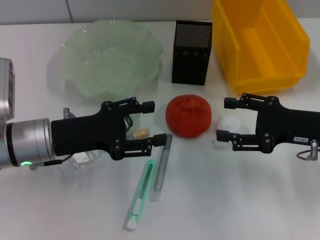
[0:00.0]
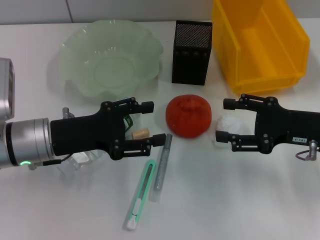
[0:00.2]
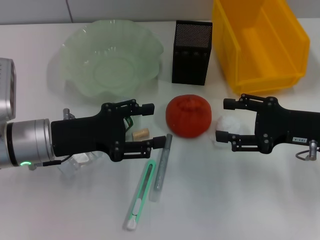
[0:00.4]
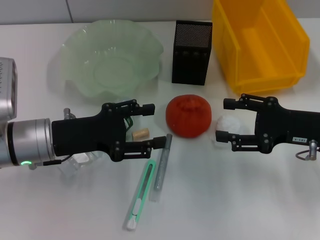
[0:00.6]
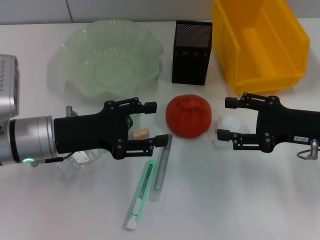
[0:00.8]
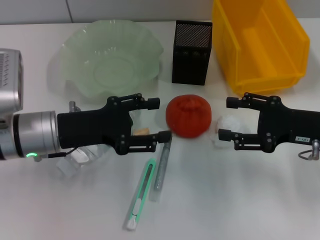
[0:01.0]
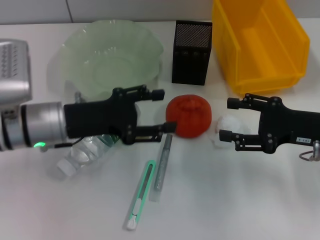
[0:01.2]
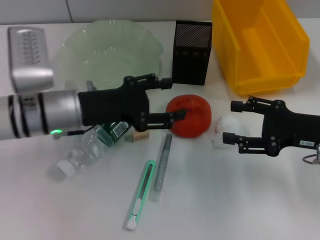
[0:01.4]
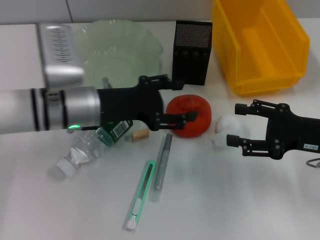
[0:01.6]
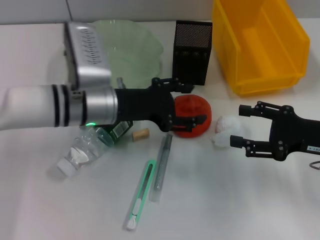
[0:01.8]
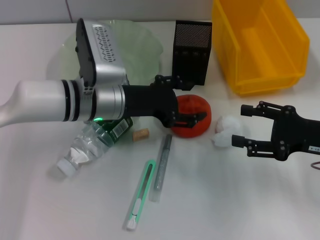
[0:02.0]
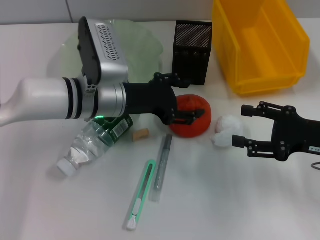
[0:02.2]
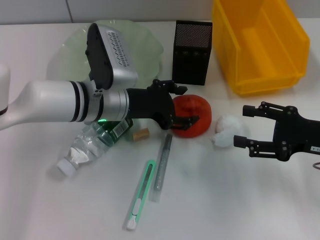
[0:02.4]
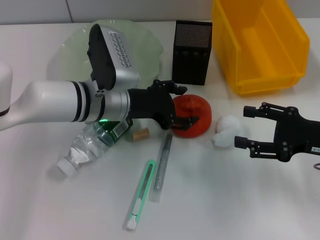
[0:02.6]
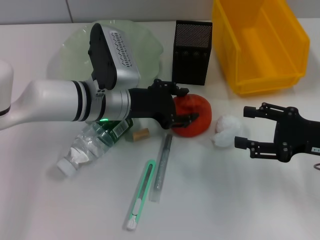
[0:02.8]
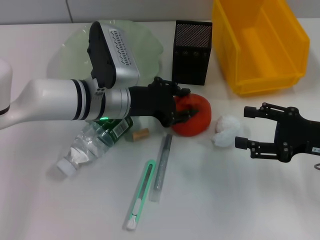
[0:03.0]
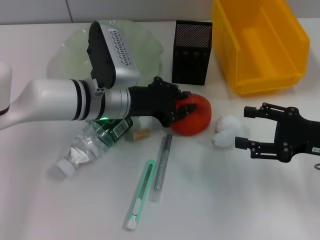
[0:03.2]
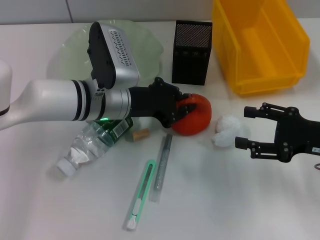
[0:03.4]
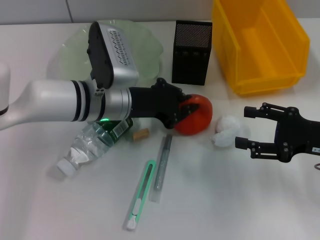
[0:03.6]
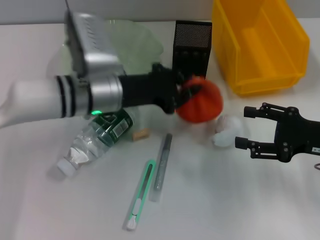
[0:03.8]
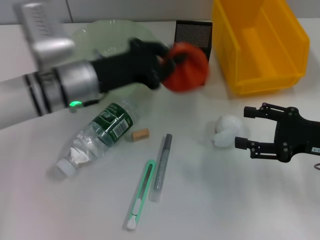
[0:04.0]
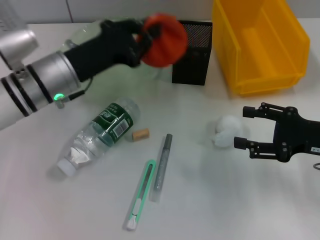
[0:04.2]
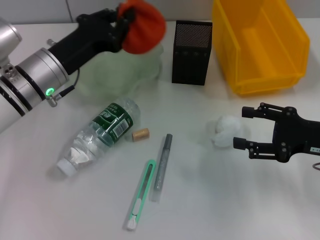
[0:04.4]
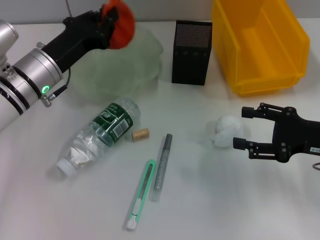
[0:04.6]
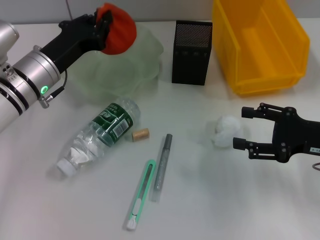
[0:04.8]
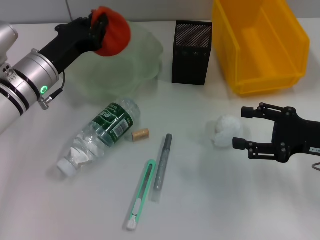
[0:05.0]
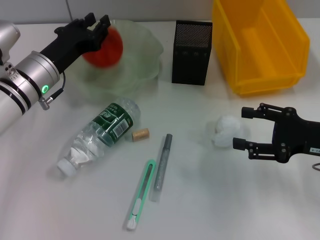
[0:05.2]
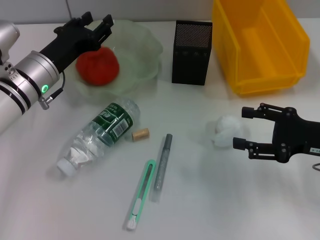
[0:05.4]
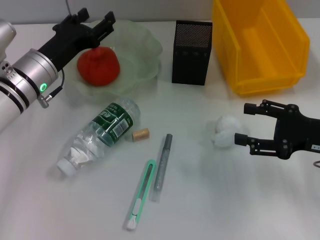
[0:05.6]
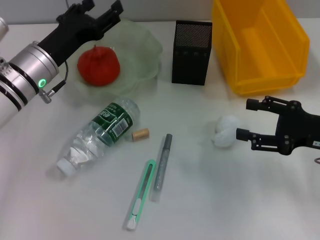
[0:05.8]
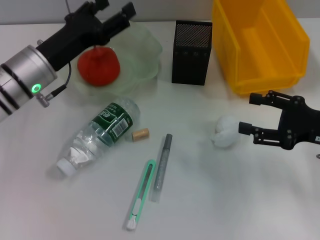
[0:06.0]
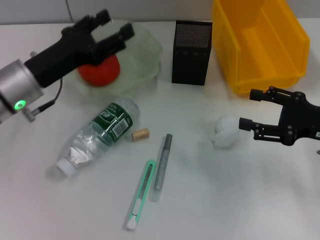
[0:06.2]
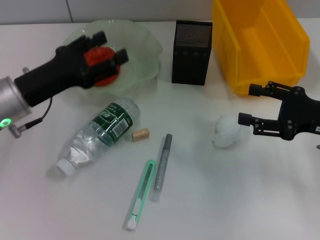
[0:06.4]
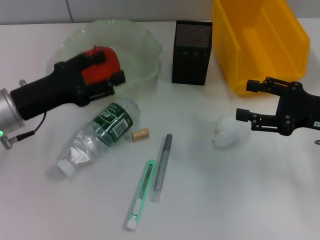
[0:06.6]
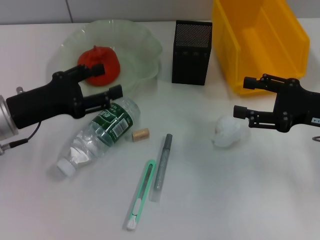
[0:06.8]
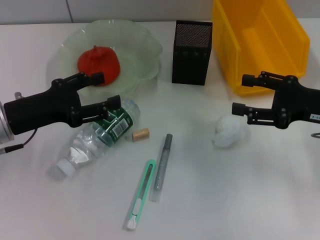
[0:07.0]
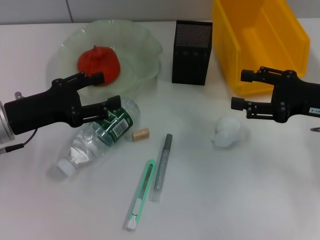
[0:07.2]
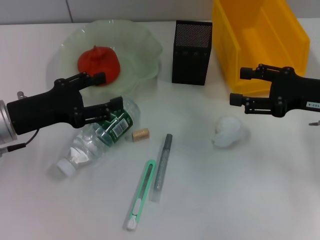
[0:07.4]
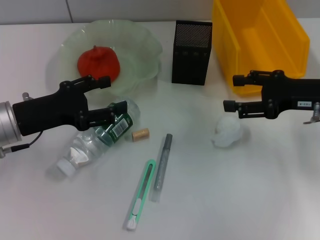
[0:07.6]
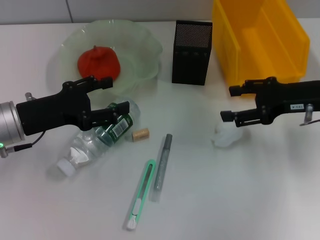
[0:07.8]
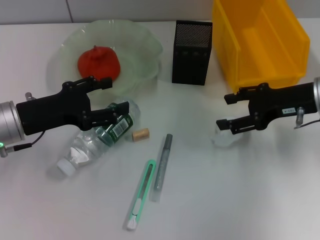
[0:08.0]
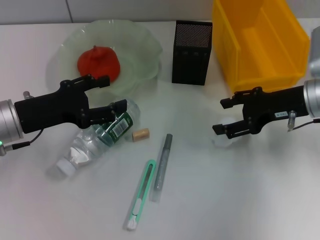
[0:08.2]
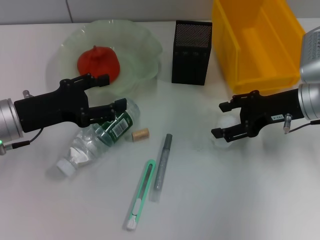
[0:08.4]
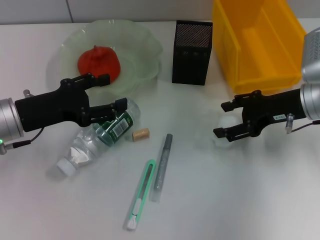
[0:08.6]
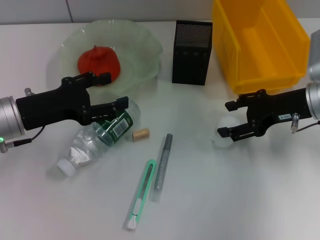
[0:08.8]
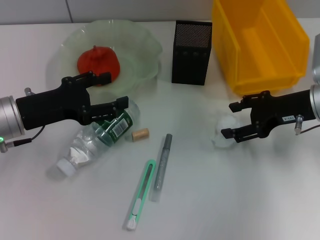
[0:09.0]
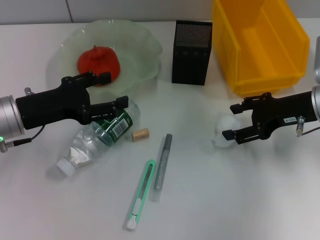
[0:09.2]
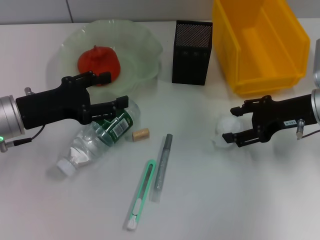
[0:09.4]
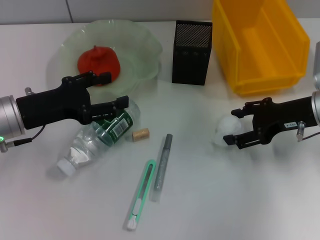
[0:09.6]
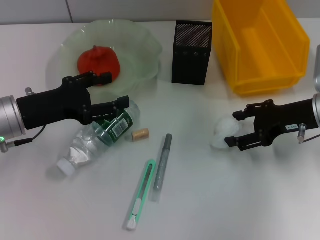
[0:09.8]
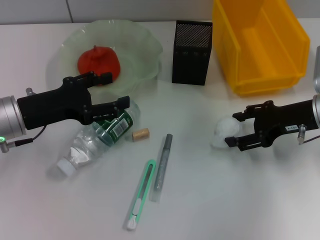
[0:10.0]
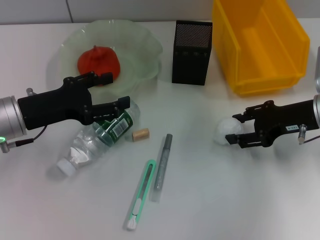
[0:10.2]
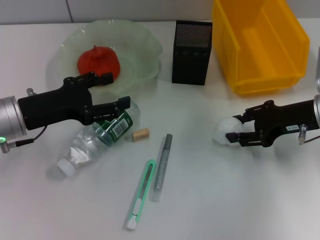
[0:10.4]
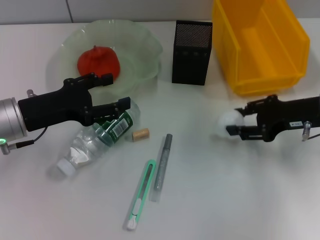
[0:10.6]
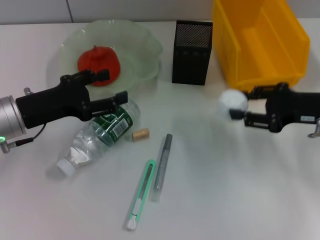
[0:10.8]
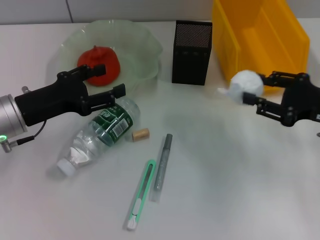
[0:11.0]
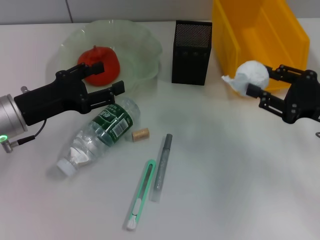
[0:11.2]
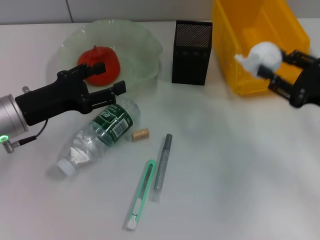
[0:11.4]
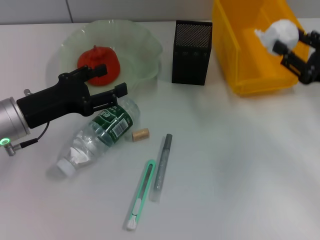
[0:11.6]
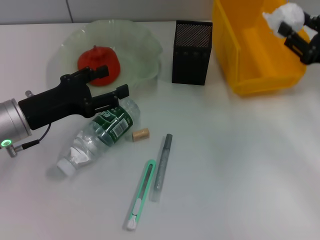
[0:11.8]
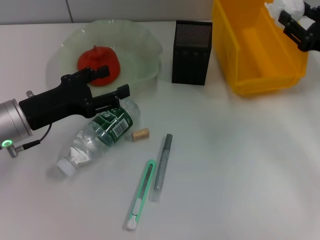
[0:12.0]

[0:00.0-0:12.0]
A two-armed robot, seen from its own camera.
Step, 0:00.0 to 0:03.4: Grab the orange with the left hand.
Step, 0:03.6 to 0:05.4: Place the orange into the fruit bowl with the left hand.
Step, 0:05.6 to 0:10.2: Grab the paper ball with the right hand.
0:00.0 to 0:01.6: The left gripper goes roughly 5 cm to the right and forward.
0:01.6 to 0:03.0: The left gripper shifts by some 5 cm.
0:03.0 to 0:04.4: The left gripper shifts about 10 cm to the left, and closes its fingers.
0:04.4 to 0:06.0: The left gripper opens up.
0:06.0 to 0:07.6: The left gripper travels backward by some 5 cm. Meanwhile the right gripper is displaced forward by about 5 cm.
0:07.6 to 0:09.0: There are only small adjustments of the grippers.
0:09.0 to 0:10.4: There are only small adjustments of the grippers.

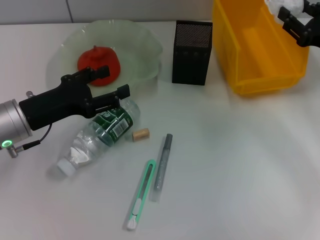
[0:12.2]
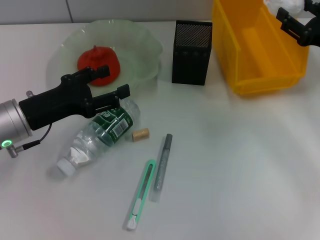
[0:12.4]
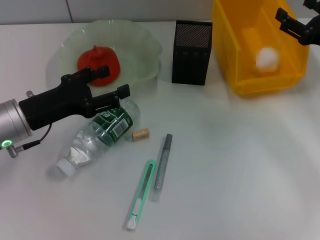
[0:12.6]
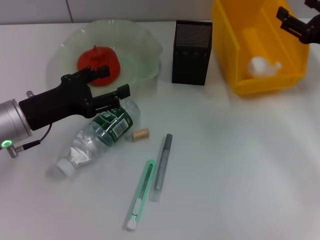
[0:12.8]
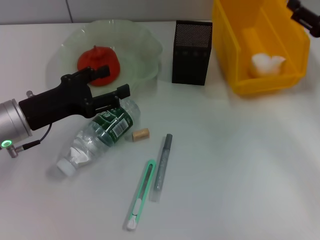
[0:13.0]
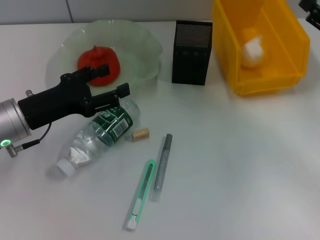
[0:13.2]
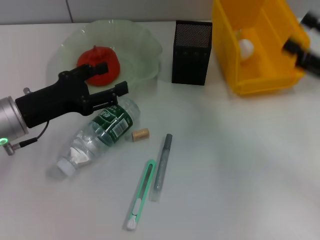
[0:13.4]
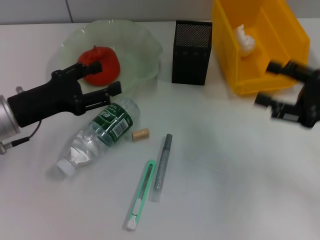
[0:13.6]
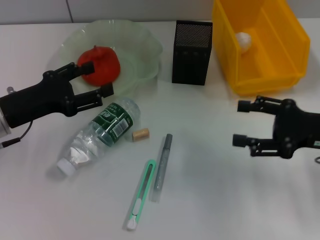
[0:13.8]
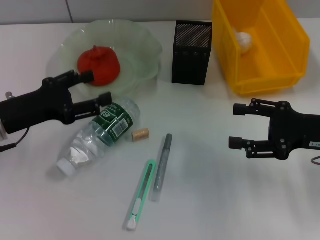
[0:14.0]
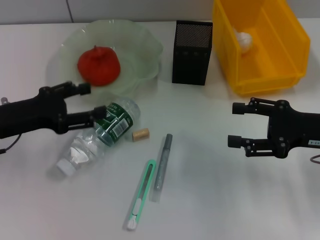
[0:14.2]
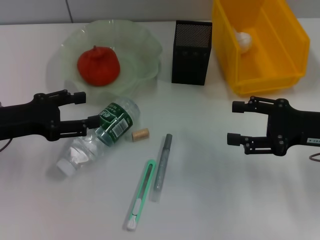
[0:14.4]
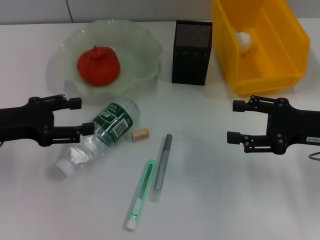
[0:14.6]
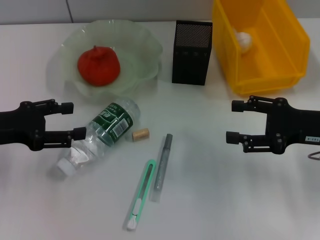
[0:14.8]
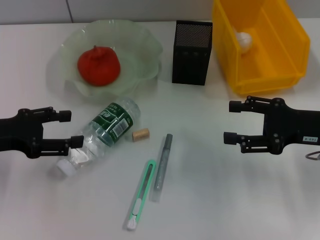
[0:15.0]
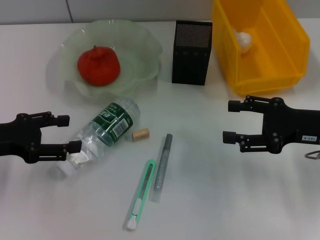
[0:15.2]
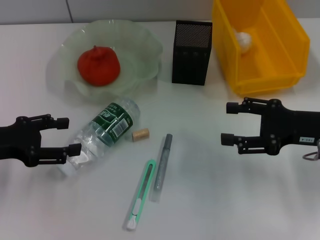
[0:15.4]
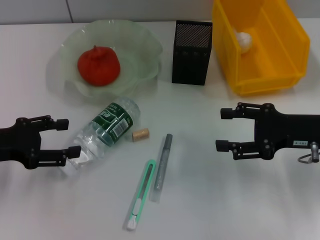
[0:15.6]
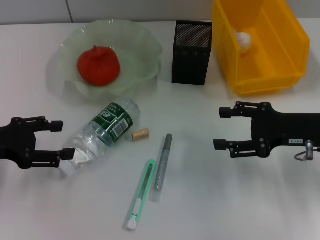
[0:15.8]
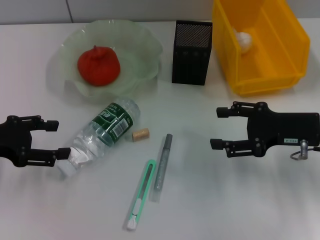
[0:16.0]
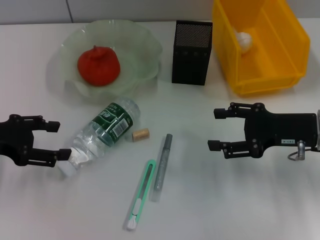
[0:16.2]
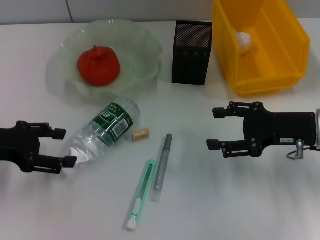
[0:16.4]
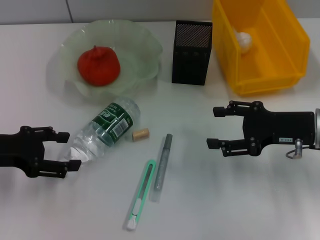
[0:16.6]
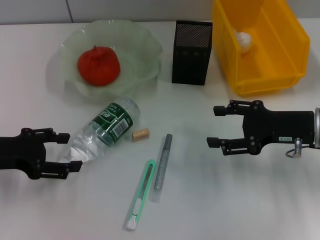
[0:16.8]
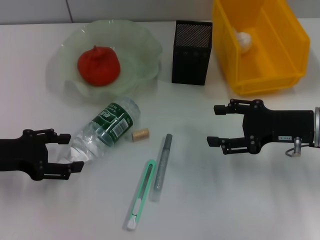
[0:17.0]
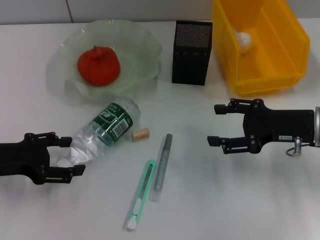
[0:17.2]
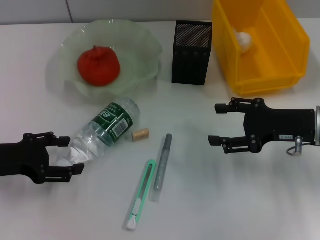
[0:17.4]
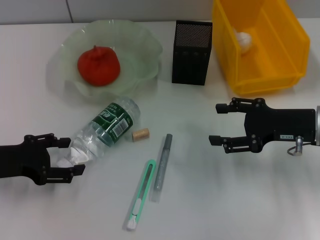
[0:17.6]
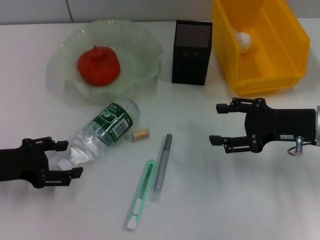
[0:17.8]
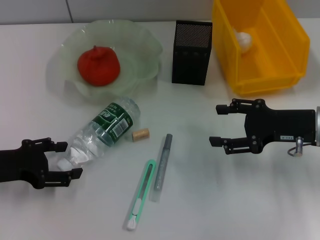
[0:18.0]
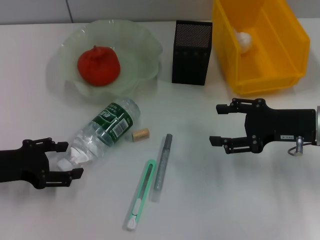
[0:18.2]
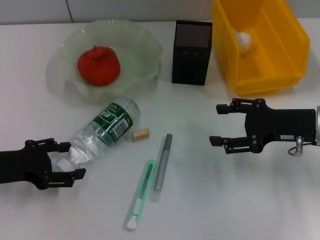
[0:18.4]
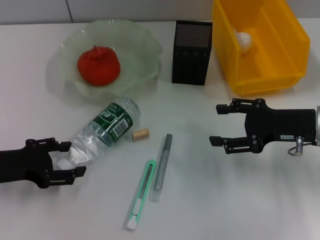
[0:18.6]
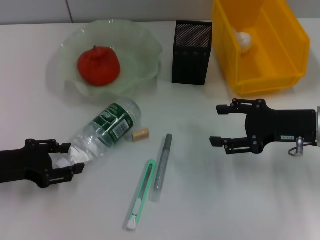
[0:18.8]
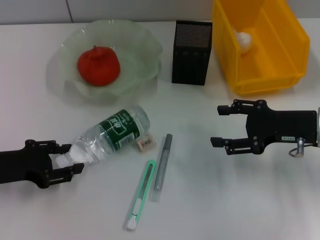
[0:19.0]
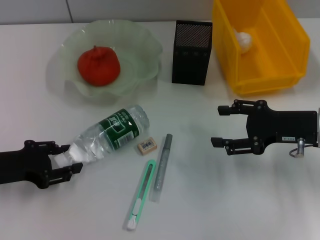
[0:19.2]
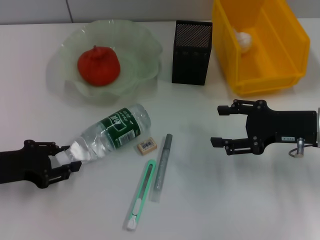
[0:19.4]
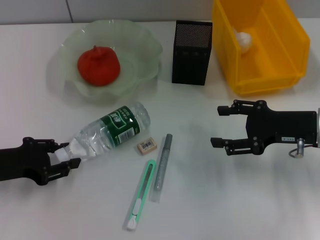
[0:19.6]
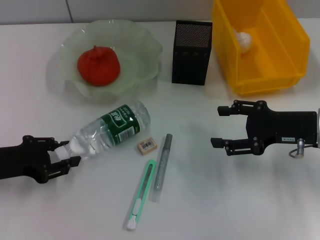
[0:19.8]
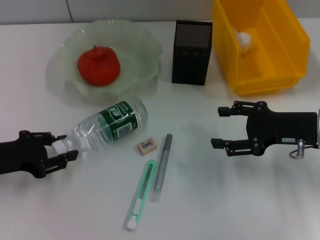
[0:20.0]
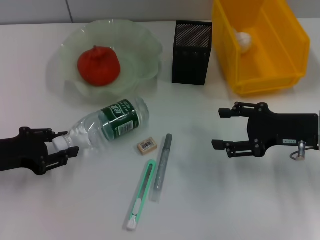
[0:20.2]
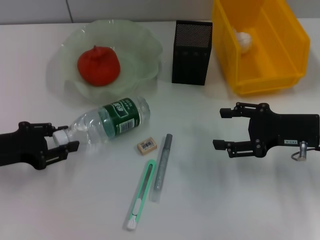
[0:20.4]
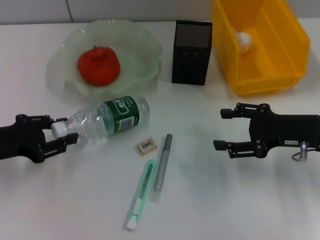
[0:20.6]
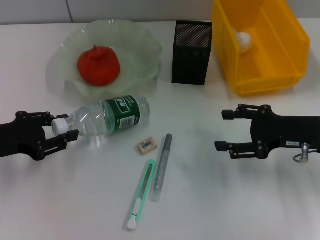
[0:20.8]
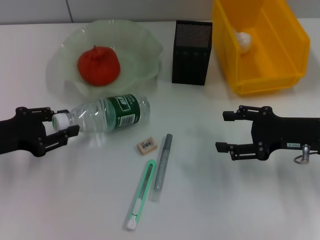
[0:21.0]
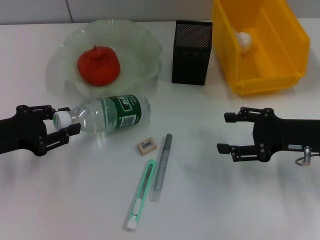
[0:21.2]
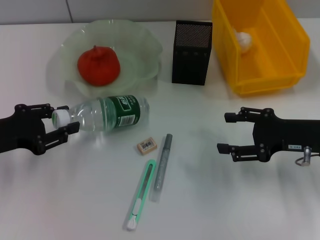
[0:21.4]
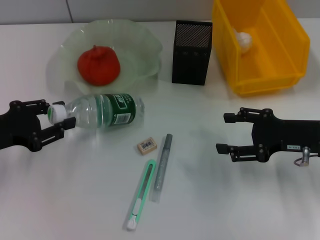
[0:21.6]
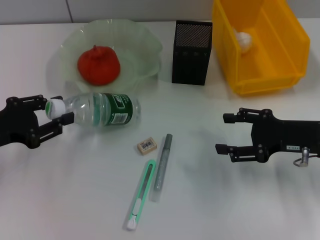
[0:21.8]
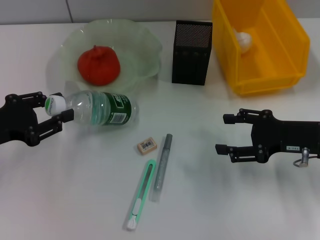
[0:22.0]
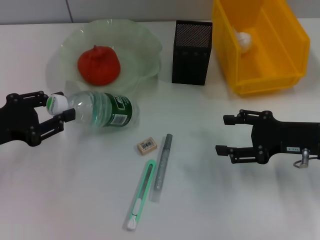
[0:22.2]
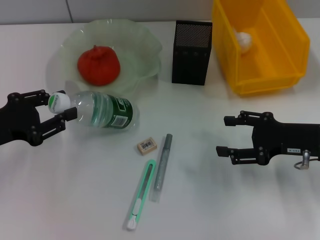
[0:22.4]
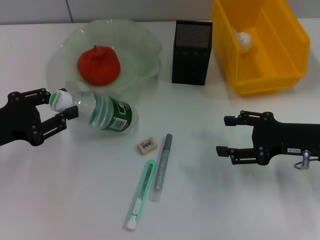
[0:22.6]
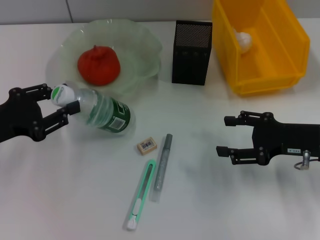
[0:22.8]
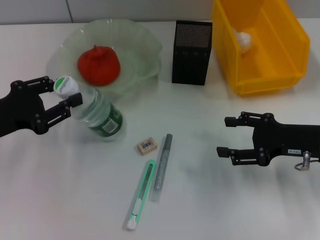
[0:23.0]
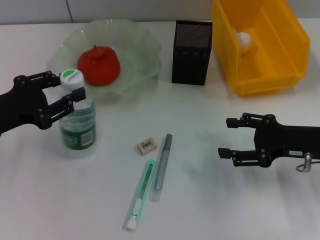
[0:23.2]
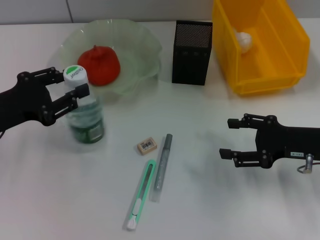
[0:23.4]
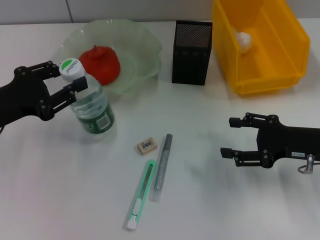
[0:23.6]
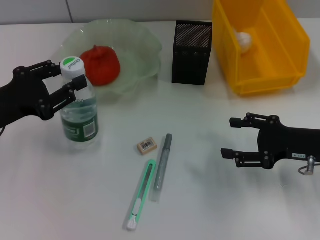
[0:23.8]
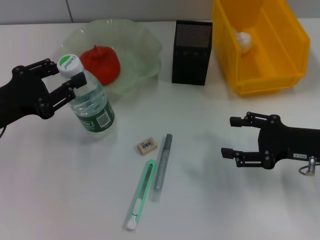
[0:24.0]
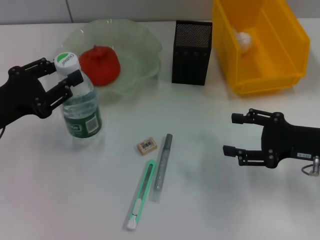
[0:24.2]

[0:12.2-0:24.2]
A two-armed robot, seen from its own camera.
Step, 0:12.8 to 0:20.0: Grab the water bottle with the left hand.
0:12.2 to 0:13.8: The right gripper heads backward, covering some 10 cm, and opens.
0:13.8 to 0:15.2: The left gripper moves about 5 cm.
0:15.2 to 0:18.2: The grippers move only a little.
0:18.2 to 0:19.8: The left gripper closes up.
0:19.8 to 0:21.2: There are only small adjustments of the grippers.
0:21.2 to 0:22.6: The grippers make only small movements.
0:22.6 to 0:24.2: There are only small adjustments of the grippers.
